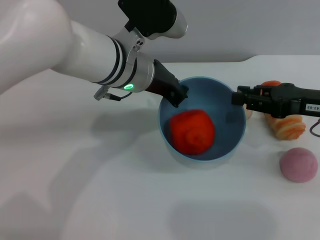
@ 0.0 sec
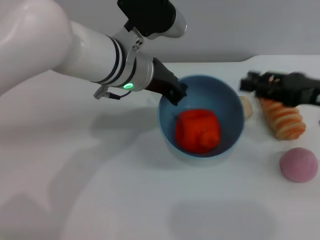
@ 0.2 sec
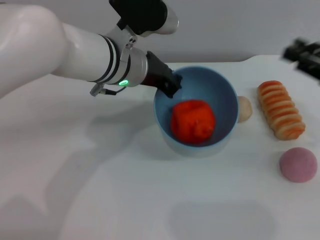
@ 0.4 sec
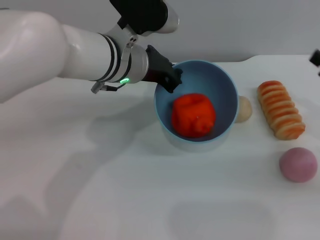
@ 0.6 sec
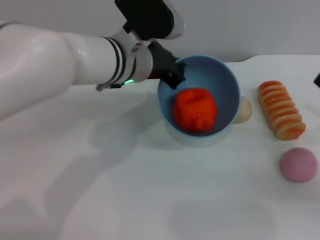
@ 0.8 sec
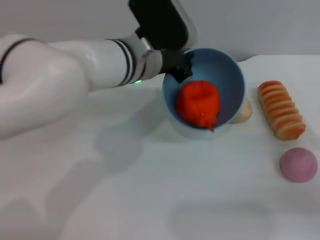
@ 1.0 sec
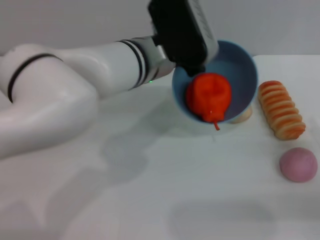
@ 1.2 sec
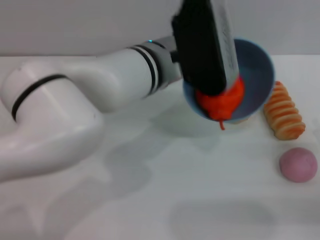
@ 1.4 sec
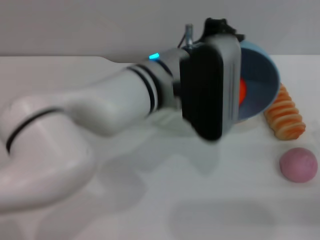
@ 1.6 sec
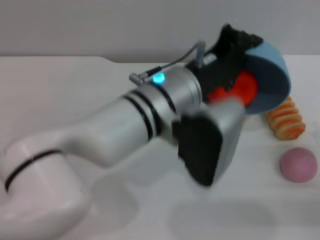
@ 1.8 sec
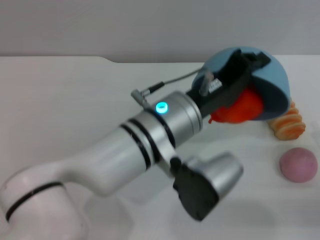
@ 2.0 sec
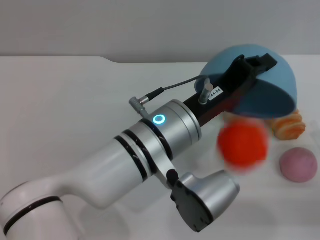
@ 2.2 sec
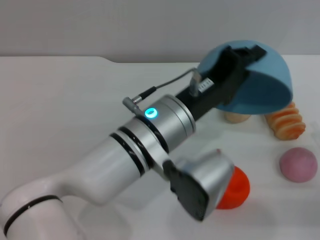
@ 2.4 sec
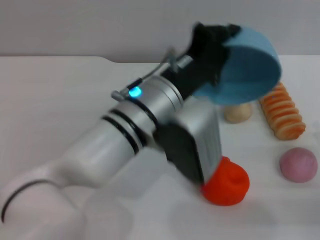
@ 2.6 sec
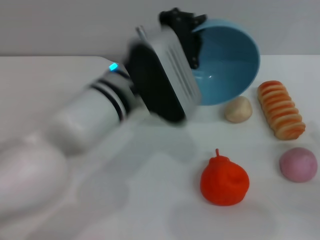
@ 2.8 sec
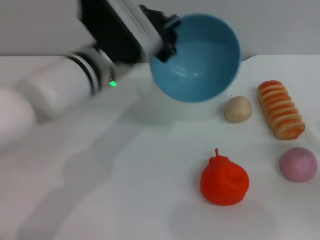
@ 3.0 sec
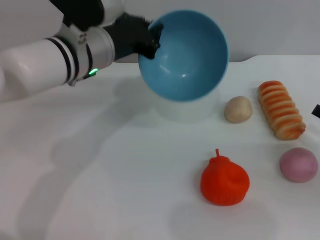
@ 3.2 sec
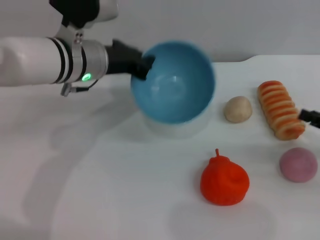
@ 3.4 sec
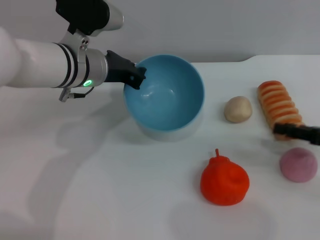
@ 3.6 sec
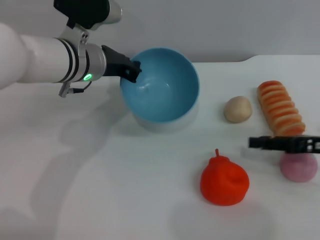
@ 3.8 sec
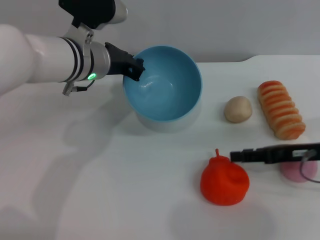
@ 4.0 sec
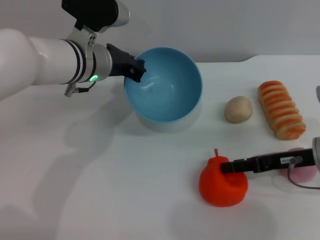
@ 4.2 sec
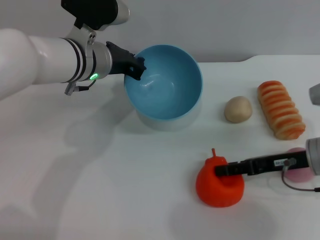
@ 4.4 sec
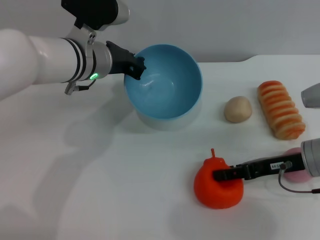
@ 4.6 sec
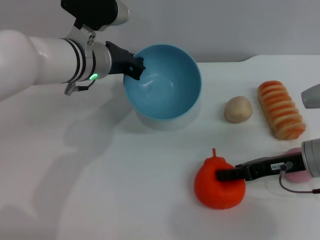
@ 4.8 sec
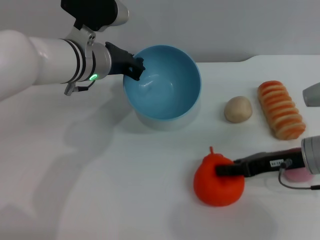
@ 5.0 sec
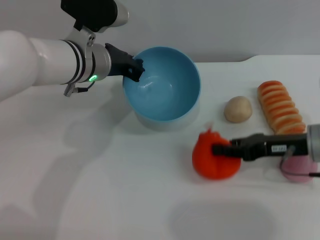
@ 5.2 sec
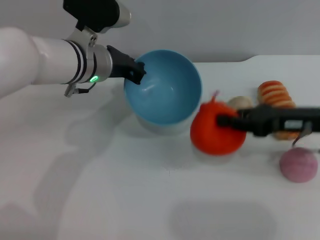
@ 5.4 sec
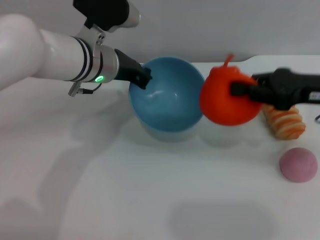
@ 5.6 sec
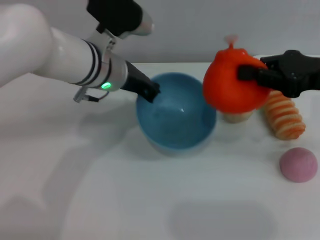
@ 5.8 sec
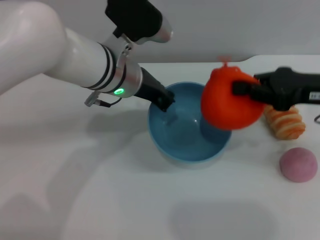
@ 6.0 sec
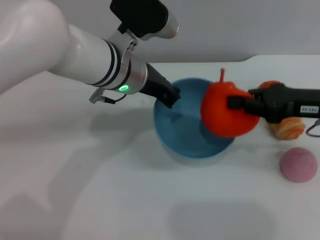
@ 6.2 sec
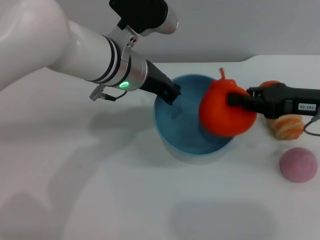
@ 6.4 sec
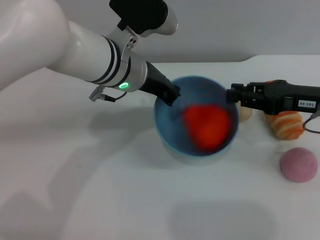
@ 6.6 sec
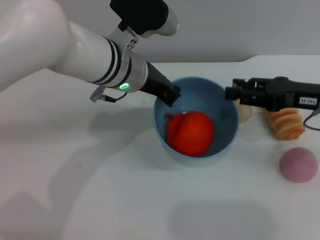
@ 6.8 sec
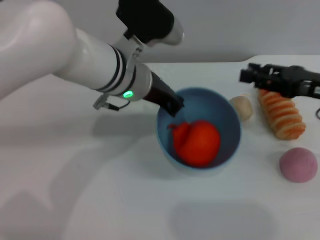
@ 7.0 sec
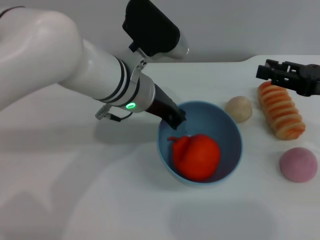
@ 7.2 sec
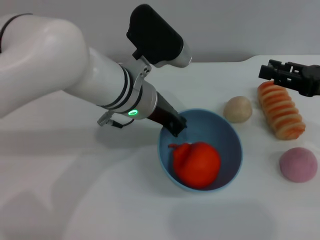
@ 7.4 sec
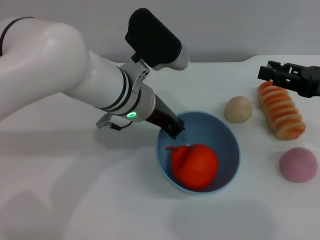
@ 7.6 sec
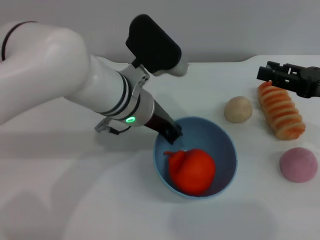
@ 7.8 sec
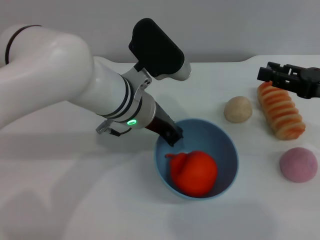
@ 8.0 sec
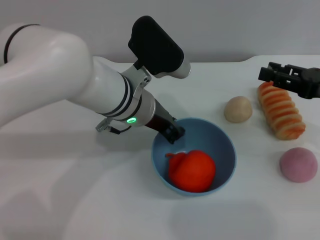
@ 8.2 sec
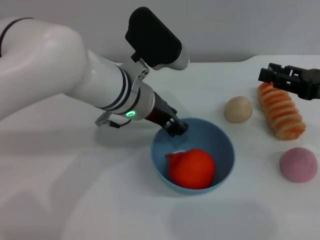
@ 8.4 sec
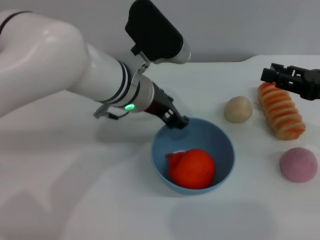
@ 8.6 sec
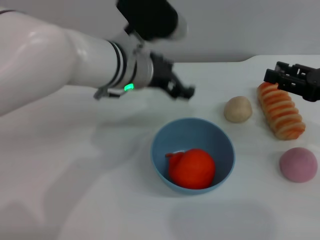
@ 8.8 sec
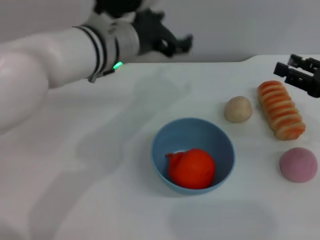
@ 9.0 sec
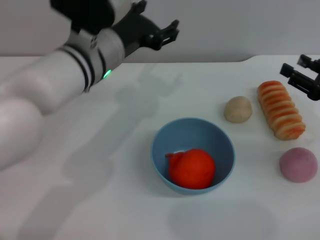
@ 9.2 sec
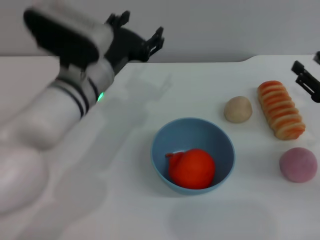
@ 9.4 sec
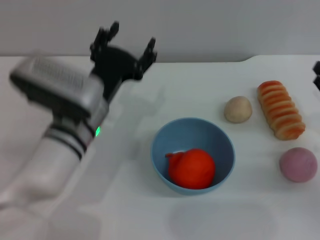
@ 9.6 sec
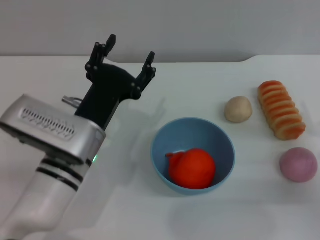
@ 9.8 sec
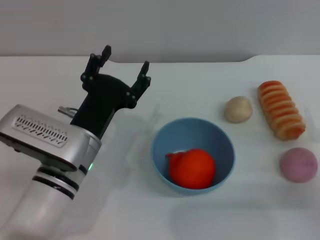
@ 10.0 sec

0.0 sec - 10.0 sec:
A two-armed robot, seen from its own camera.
Task of the whole recording: put the orange into the blue bowl and pour it out repeatedly.
Step, 0.4 sec - 2.2 sec: Pour the orange out of the bowl.
Step, 2.4 sec - 5.2 sec: Pick up the orange with the right gripper.
Step, 5.6 sec - 6.6 sec: Place the orange into the bowl.
Step, 6.8 sec - 8.6 sec: Place the bowl on the table.
0.0 sec - 1.4 sec: The left gripper changes place by roughly 5 cm; the right gripper heads downward, backward and to the right, covering about 15 cm, and opens its fingers.
1.4 sec - 2.8 sec: The left gripper moves some 10 cm backward and comes back.
2.8 sec - 4.2 sec: The left gripper moves forward and to the left, approximately 10 cm. Meanwhile the right gripper heads to the left and forward, covering approximately 15 cm.
4.2 sec - 5.8 sec: The right gripper shifts some 10 cm upward, and closes up.
5.8 sec - 7.2 sec: The right gripper shifts by about 5 cm, and opens up.
7.2 sec - 8.6 sec: There are only small adjustments of the grippers.
8.6 sec - 10.0 sec: The left gripper heads backward, downward and to the left, covering roughly 15 cm, and opens up. Meanwhile the right gripper moves downward and backward, roughly 15 cm.

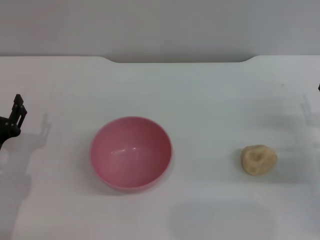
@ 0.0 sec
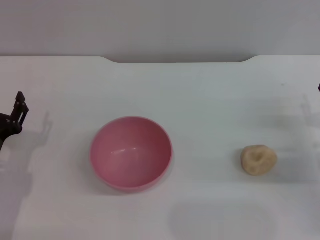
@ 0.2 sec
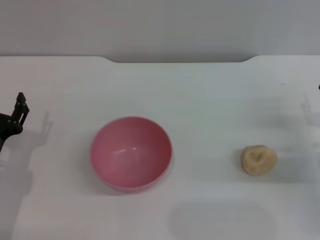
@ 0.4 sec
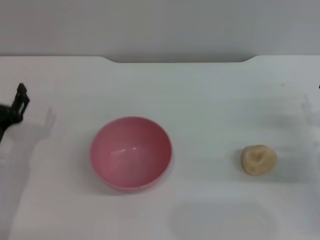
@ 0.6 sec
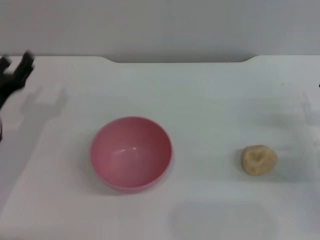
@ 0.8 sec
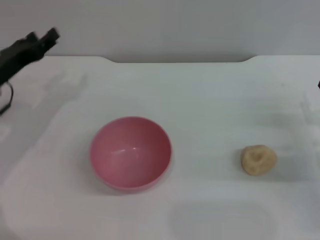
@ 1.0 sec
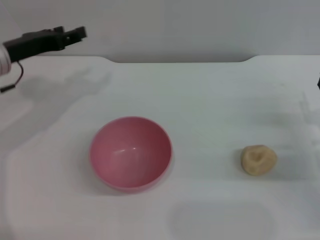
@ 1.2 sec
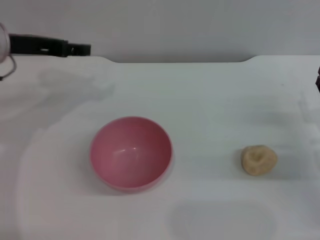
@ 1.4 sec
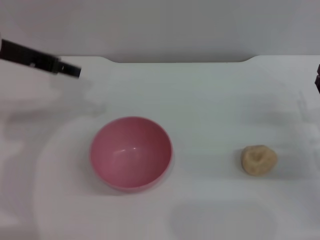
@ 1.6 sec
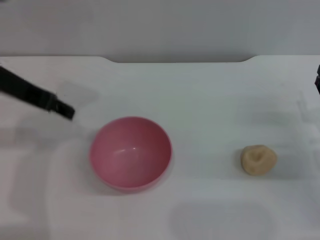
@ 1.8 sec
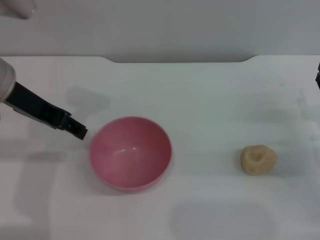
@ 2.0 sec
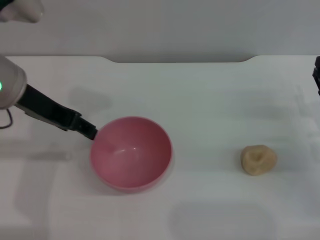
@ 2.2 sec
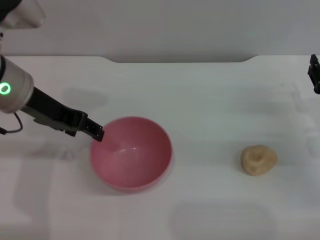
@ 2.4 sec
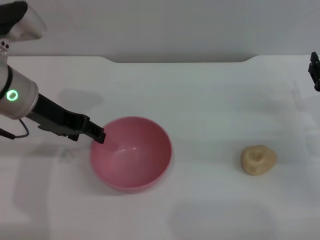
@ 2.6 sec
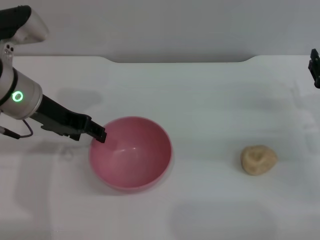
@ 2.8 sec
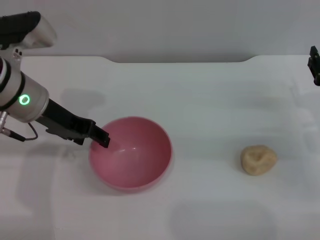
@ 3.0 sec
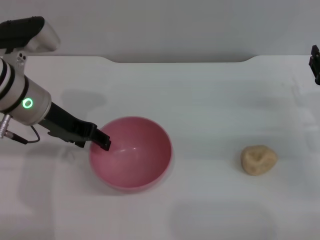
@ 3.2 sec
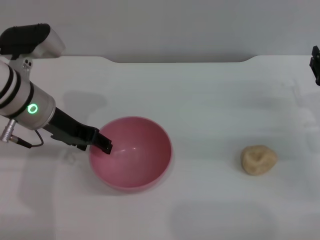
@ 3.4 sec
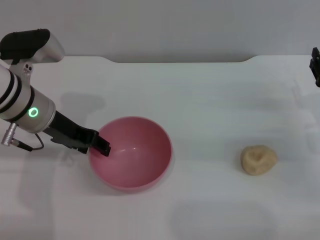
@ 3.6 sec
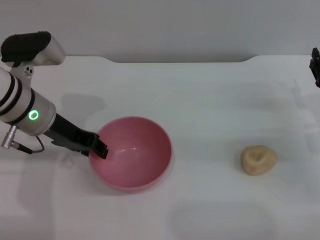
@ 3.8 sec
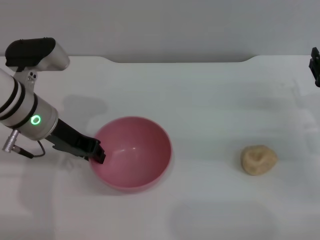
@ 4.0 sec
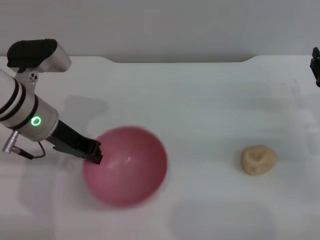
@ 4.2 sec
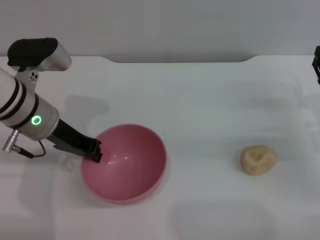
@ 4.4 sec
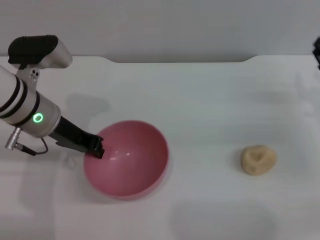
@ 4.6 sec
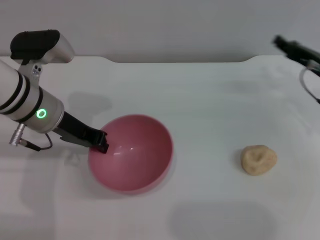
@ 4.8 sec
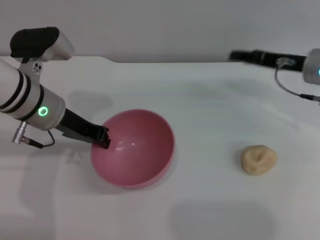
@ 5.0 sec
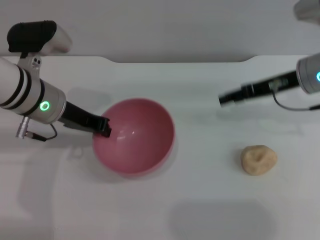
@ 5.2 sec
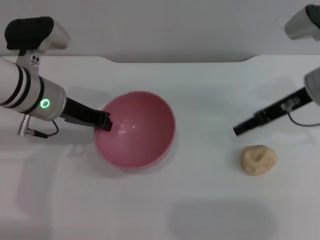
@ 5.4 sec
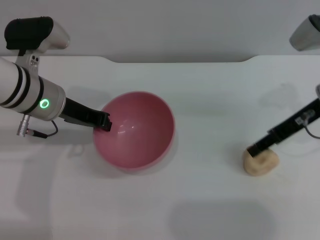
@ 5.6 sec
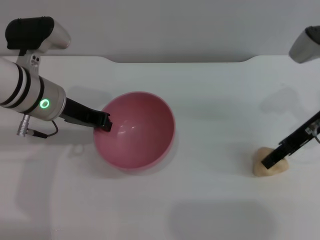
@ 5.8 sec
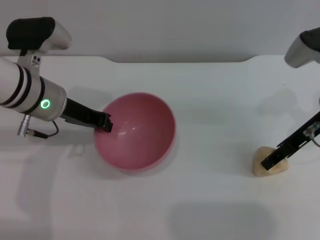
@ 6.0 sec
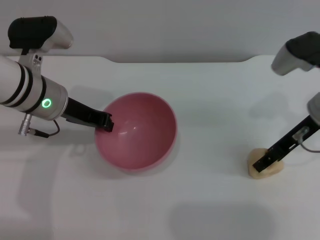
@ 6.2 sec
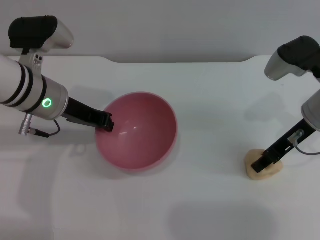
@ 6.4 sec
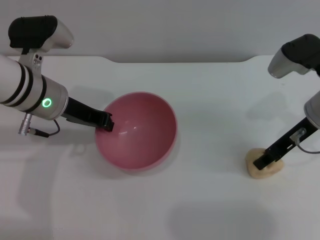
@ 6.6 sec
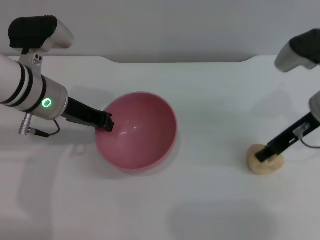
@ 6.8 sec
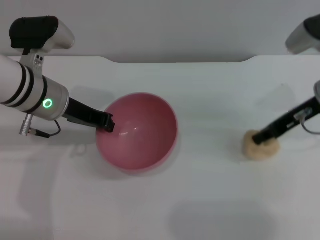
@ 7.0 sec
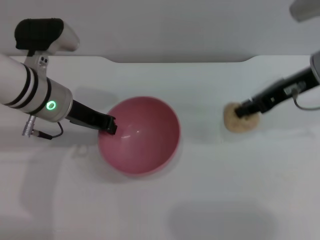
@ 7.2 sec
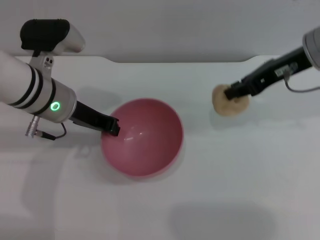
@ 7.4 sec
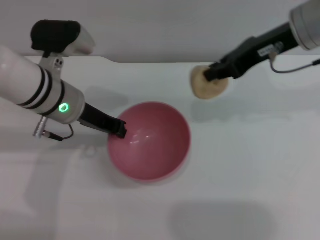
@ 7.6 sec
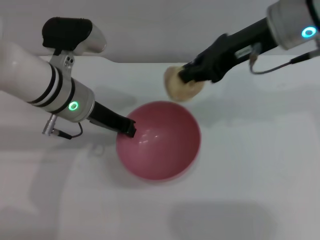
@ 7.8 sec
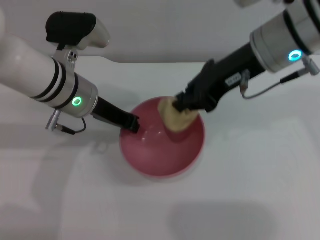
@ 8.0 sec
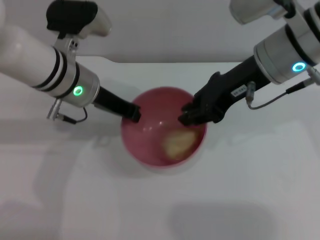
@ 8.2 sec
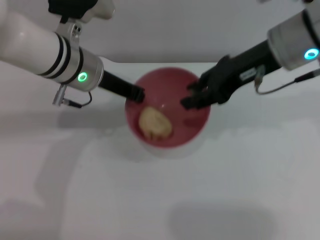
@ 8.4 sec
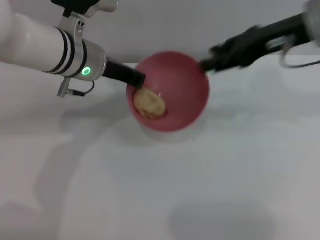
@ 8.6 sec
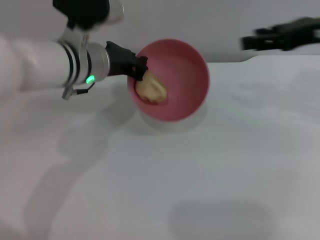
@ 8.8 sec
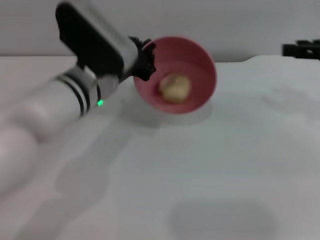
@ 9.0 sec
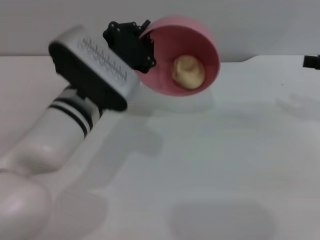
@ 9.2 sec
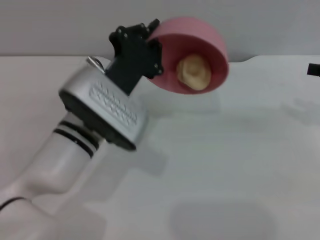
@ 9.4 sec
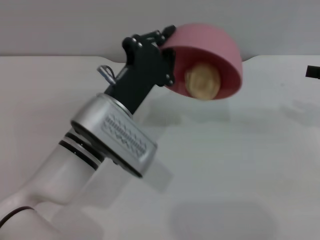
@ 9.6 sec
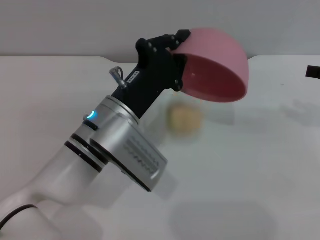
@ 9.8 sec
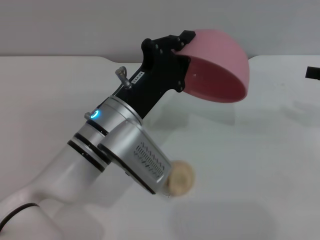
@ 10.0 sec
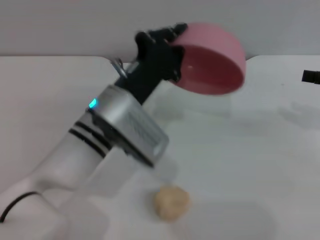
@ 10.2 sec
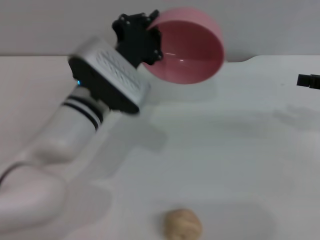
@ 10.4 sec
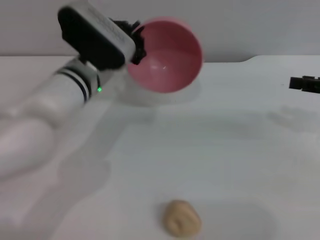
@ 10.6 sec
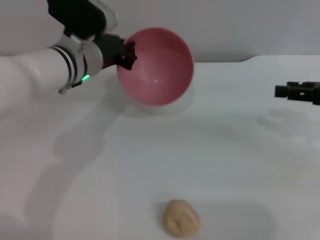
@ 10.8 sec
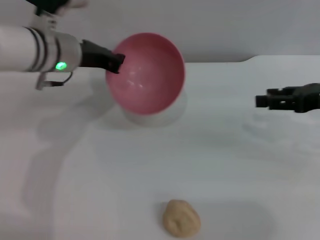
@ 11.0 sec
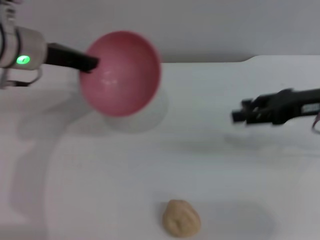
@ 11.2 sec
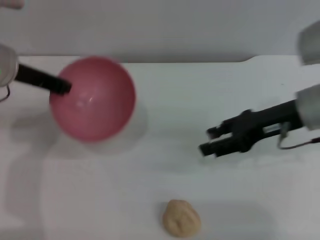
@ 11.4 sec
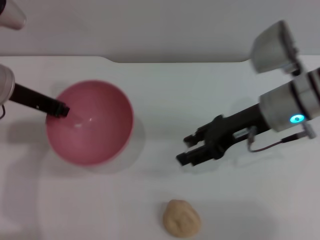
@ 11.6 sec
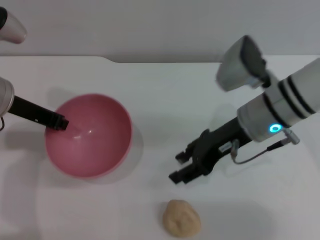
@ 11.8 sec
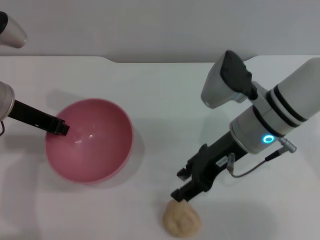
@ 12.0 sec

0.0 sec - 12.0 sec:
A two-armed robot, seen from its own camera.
Task of the whole recording: put the egg yolk pastry into the pink bowl and pour it out repeatedly.
Step, 0.0 sec - 5.2 sec: Pick up the bowl with the left gripper.
Step, 5.4 sec - 7.0 sec: Pick up the bread with the right gripper.
Step, 7.4 sec - 8.6 sec: Place the bread into the bowl.
Step, 8.8 sec - 10.0 sec: Pour the bread out of the bowl.
0.0 sec - 1.6 sec: The left gripper goes about 25 cm upward and forward.
1.6 sec - 3.0 sec: The left gripper moves downward, about 5 cm.
3.0 sec - 4.4 sec: The left gripper closes up.
4.4 sec - 6.0 sec: The right gripper heads upward and to the left, covering some 10 cm.
6.0 sec - 7.6 sec: The right gripper is displaced upward and to the left by roughly 10 cm, and closes.
7.6 sec - 9.0 sec: The right gripper is displaced to the right by approximately 15 cm, and opens up, while the left gripper heads to the right, covering roughly 5 cm.
9.0 sec - 10.4 sec: The right gripper ends up about 5 cm from where it was.
10.4 sec - 12.0 sec: The right gripper shifts about 25 cm to the left. Meanwhile the left gripper moves to the left and upward, about 15 cm.
